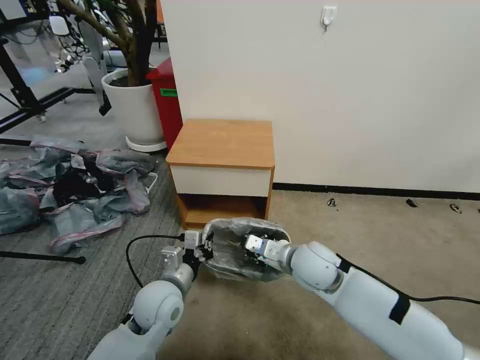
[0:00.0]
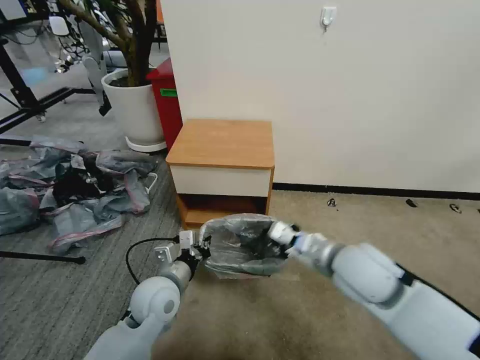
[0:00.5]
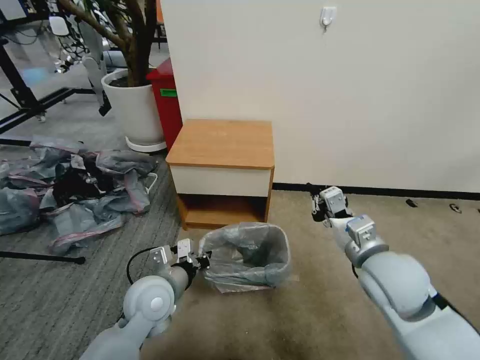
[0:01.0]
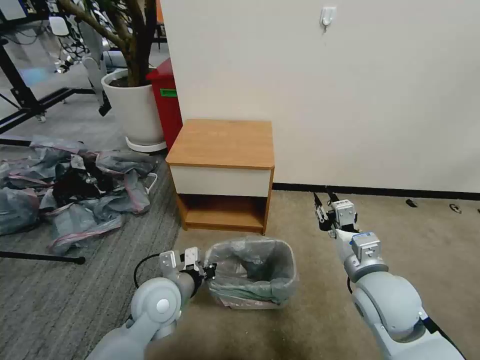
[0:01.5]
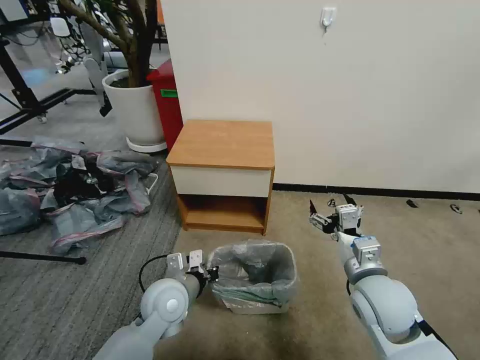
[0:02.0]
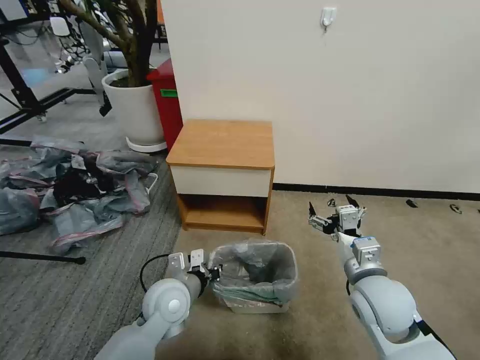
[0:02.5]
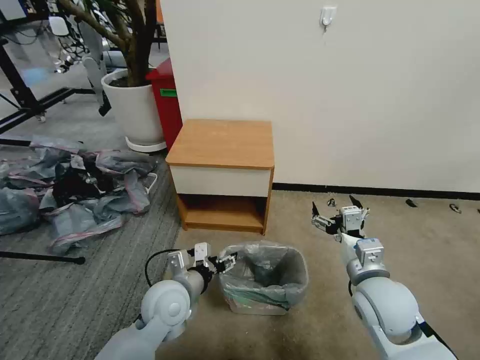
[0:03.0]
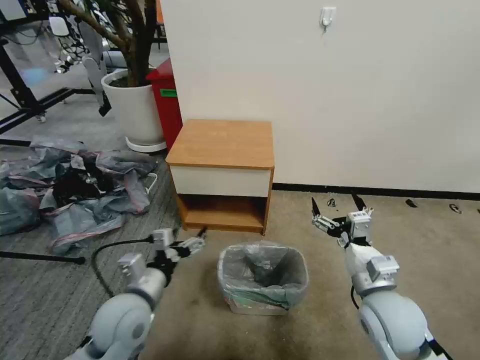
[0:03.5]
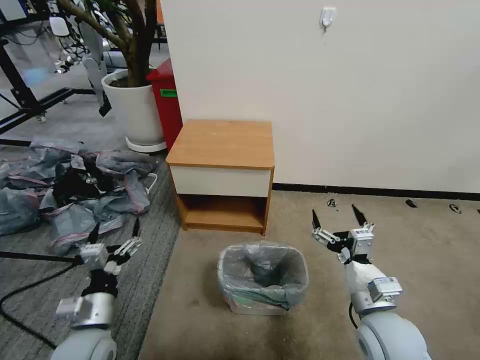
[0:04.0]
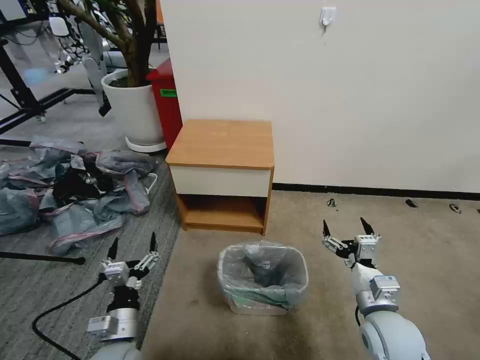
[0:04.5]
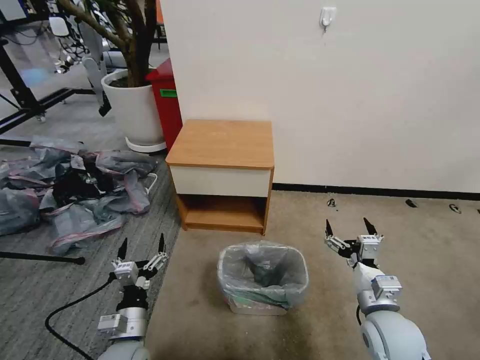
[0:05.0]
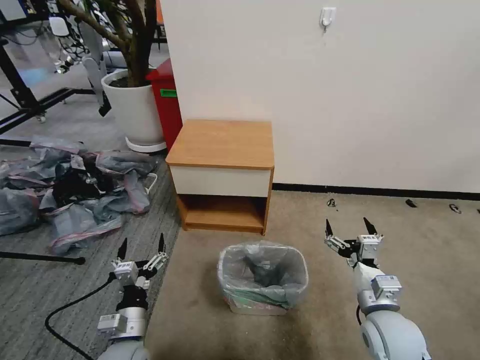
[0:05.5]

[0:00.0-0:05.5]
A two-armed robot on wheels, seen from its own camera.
Task of the whole recording: Pick up the garbage bag from the table and place it over the trash can.
0:00.0 to 0:02.0: The right gripper moves to the right and backward, about 15 cm, and opens its fingers.
0:02.0 to 0:03.5: The left gripper moves to the left and backward, some 10 cm, and opens up.
0:03.5 to 0:05.5: The right gripper travels downward by approximately 5 cm; the left gripper heads downward, covering some 10 cm.

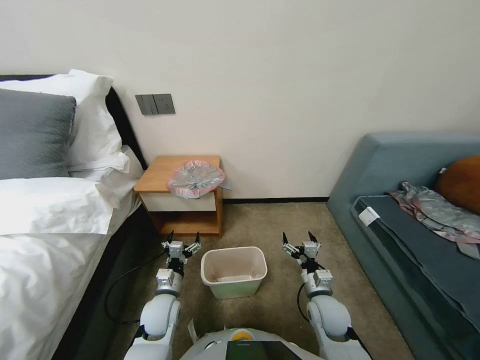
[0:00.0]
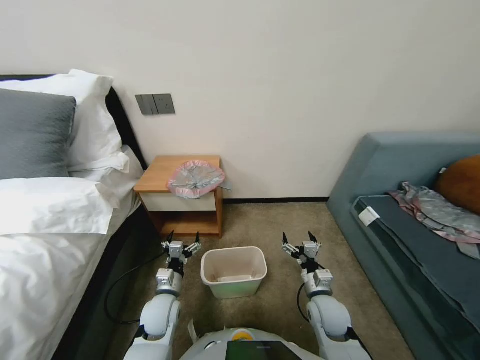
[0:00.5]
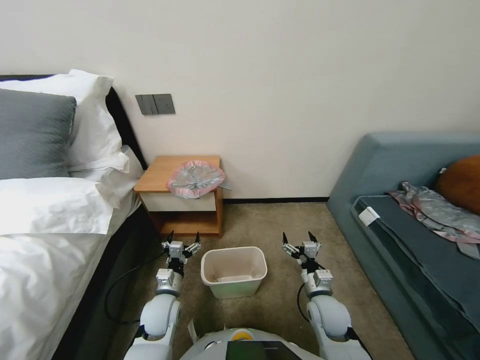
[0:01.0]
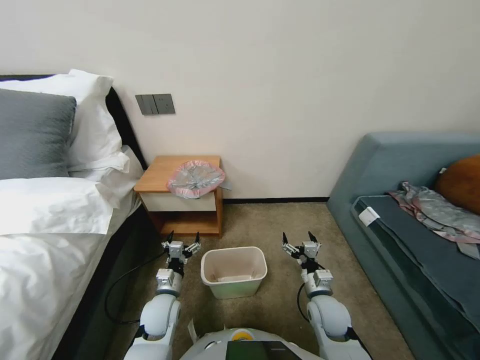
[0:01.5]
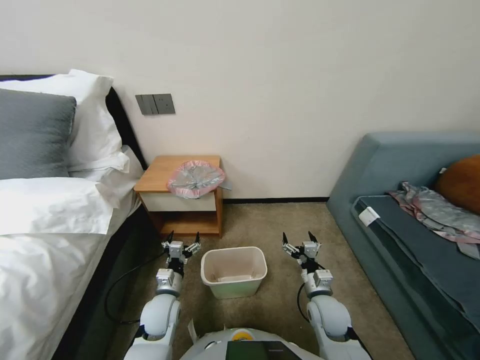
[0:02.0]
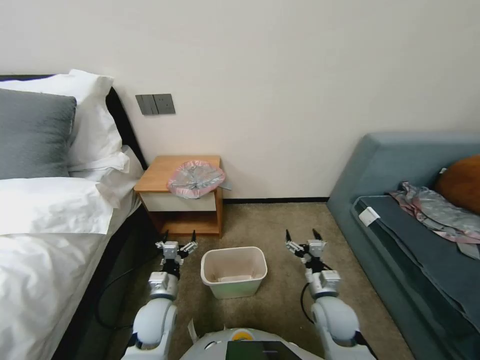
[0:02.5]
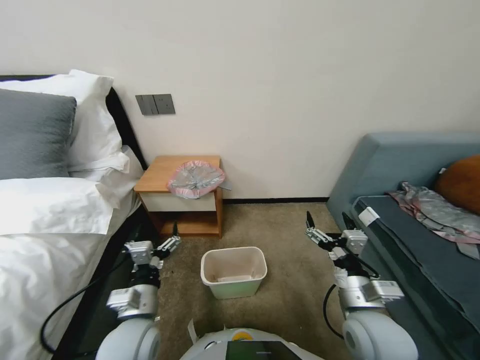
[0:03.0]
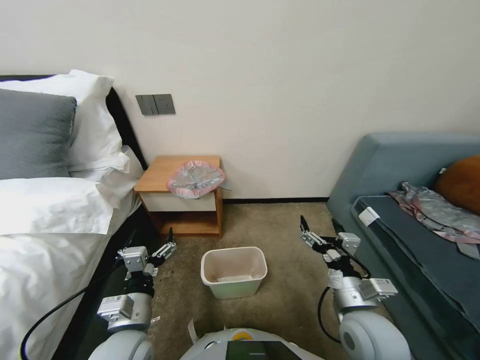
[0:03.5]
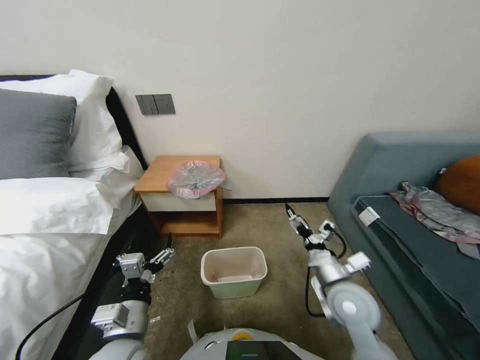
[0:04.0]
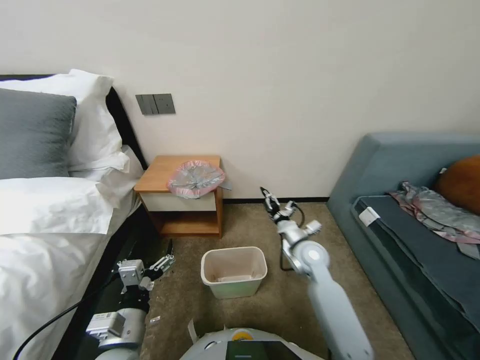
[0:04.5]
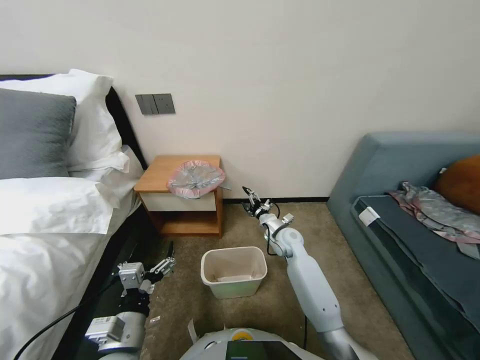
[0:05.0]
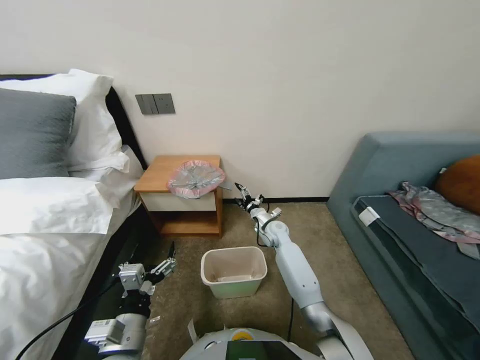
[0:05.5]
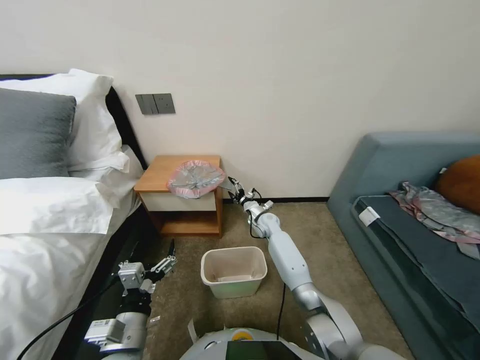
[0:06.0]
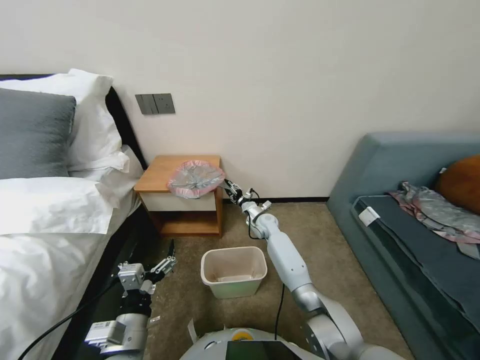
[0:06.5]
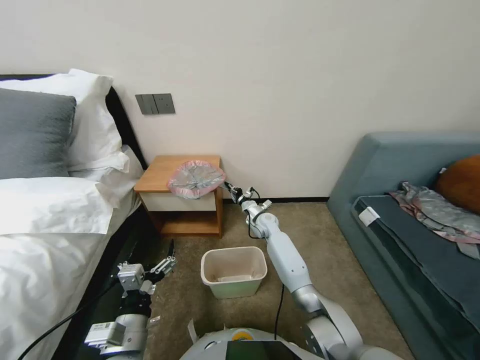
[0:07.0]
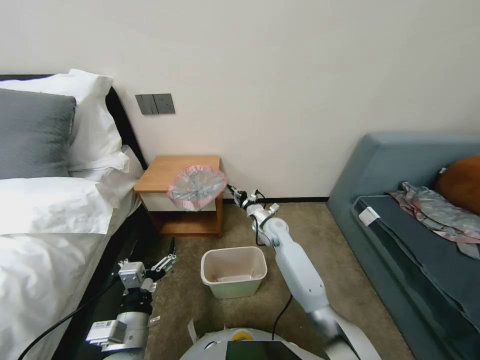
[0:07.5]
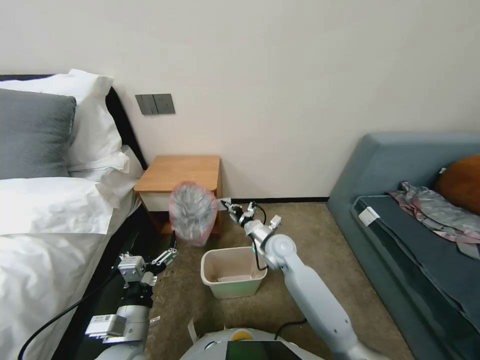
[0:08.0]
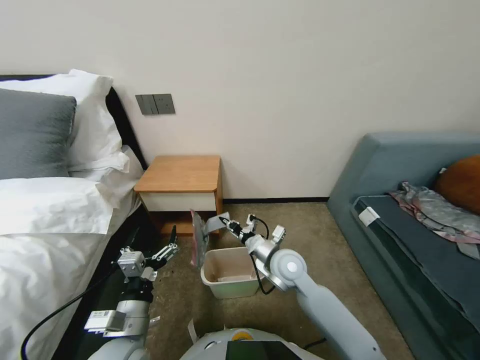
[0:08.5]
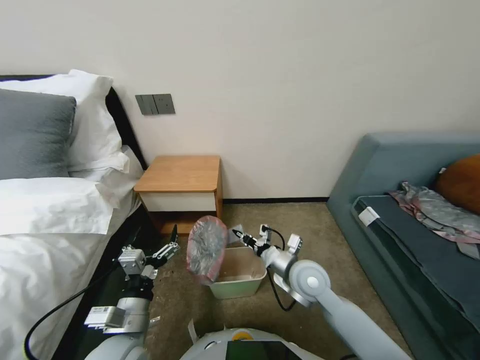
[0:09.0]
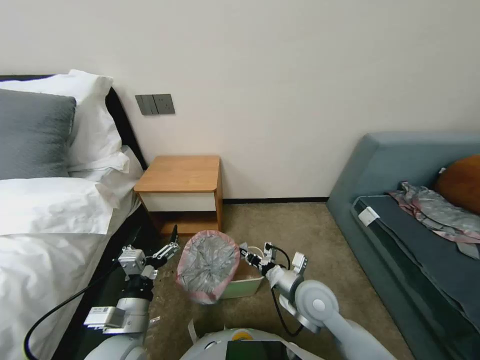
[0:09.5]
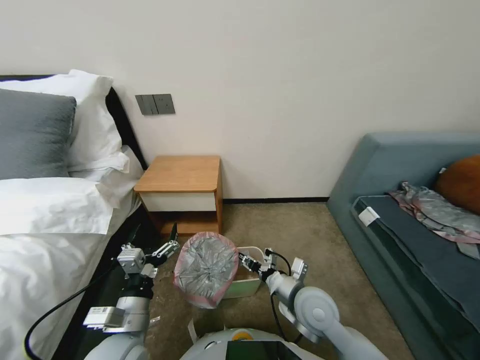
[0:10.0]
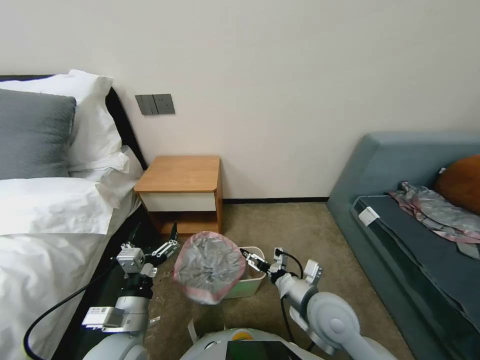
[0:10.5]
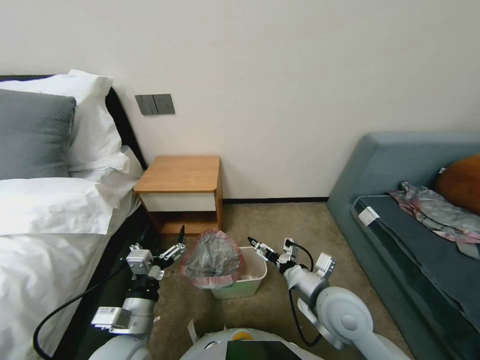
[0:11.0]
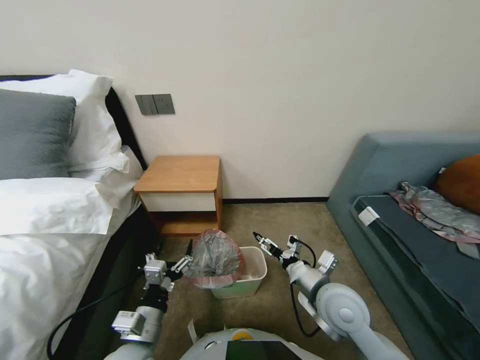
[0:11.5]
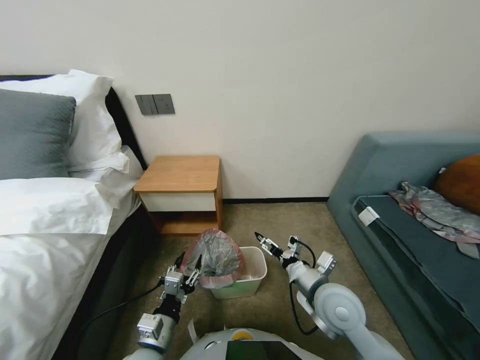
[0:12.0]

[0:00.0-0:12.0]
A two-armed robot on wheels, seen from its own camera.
Task of the whole recording: Pick up the garbage bag from the table and place it over the trash can.
0:02.0 to 0:04.0: The left gripper shifts roughly 15 cm upward and backward; the right gripper moves upward, about 10 cm.
0:04.0 to 0:06.0: The right gripper is displaced forward by about 30 cm.
0:06.0 to 0:08.0: The right gripper is displaced backward and upward by roughly 15 cm, and closes its fingers.
0:08.0 to 0:10.0: The right gripper moves backward, some 15 cm.
0:10.0 to 0:12.0: The left gripper goes roughly 5 cm downward, and closes its fingers; the right gripper shifts by approximately 5 cm, and opens.

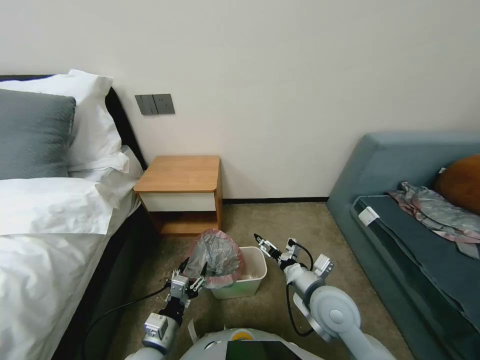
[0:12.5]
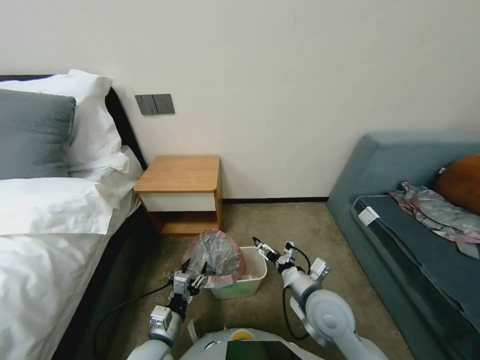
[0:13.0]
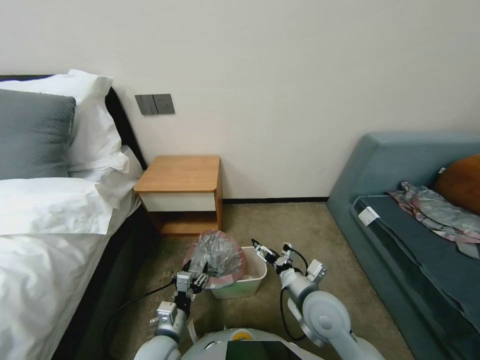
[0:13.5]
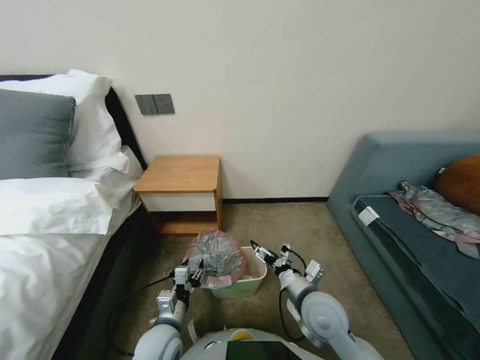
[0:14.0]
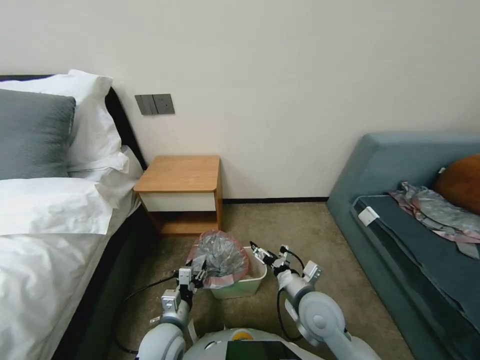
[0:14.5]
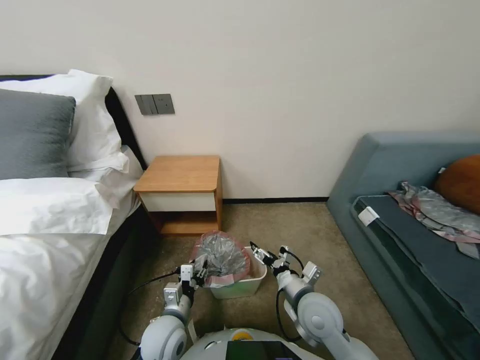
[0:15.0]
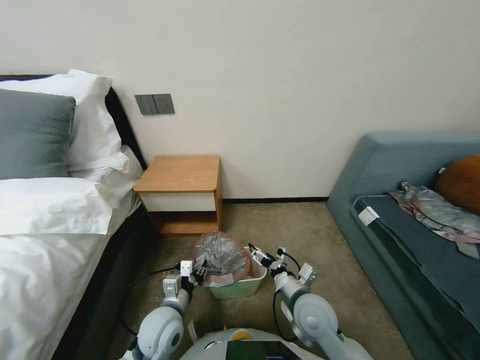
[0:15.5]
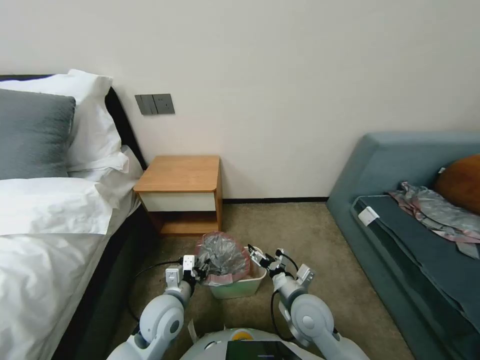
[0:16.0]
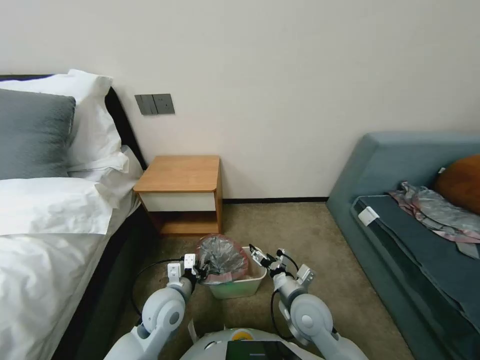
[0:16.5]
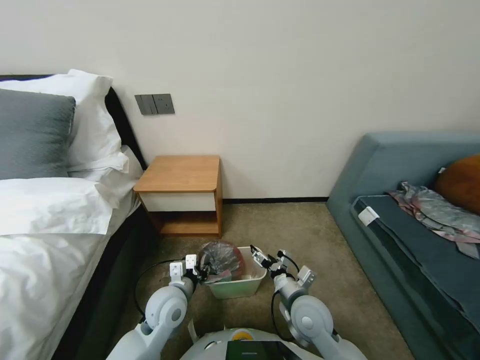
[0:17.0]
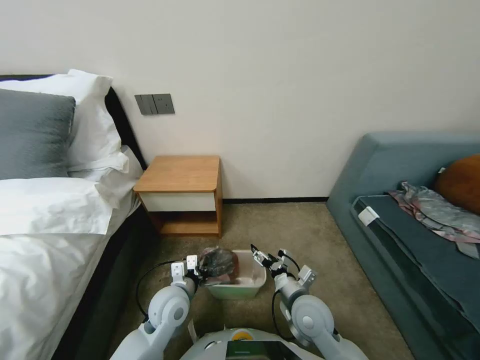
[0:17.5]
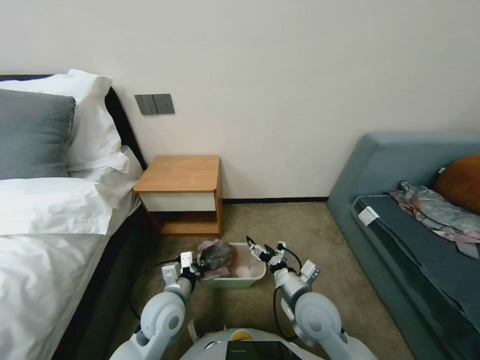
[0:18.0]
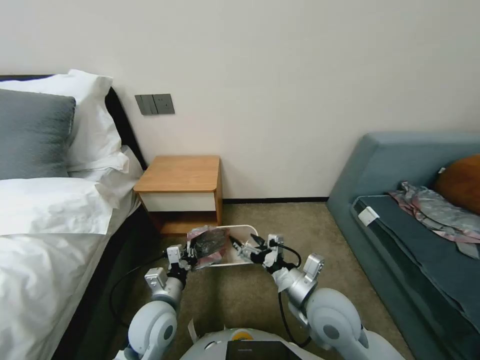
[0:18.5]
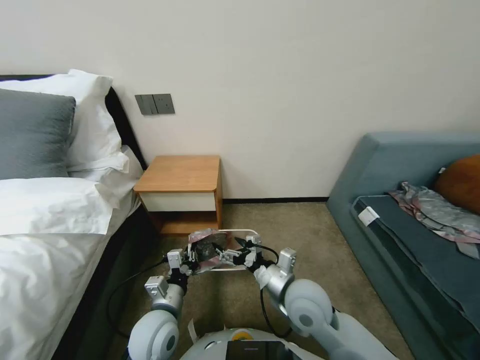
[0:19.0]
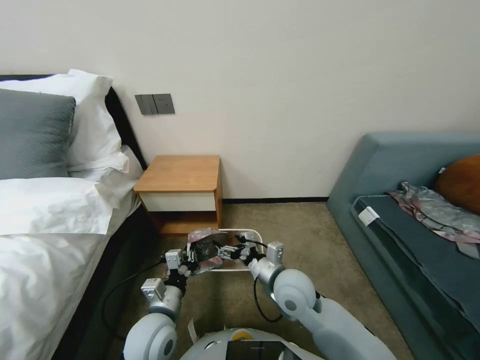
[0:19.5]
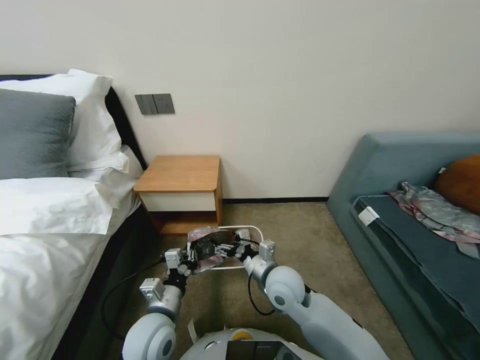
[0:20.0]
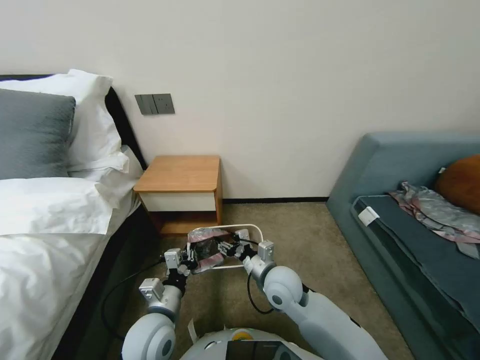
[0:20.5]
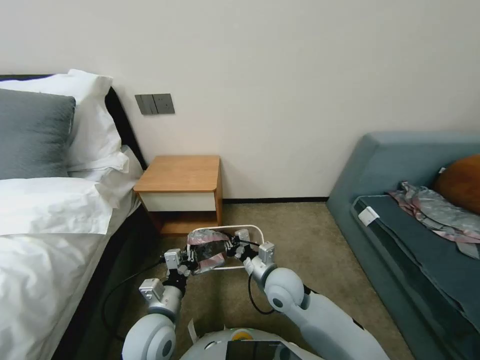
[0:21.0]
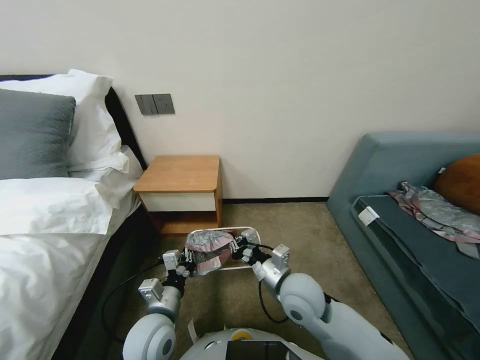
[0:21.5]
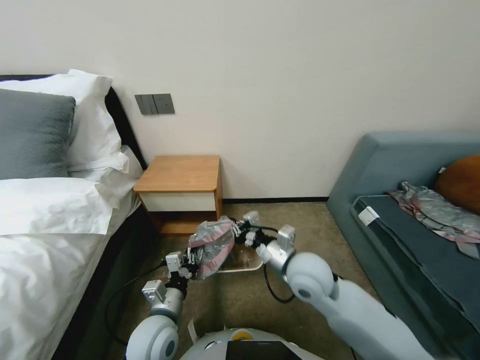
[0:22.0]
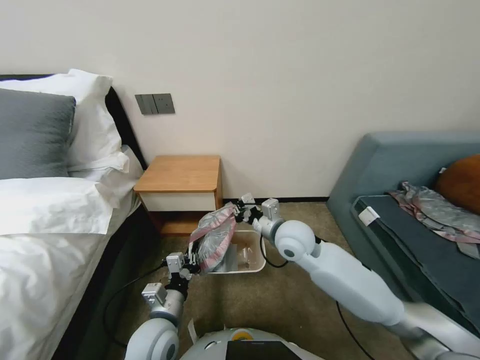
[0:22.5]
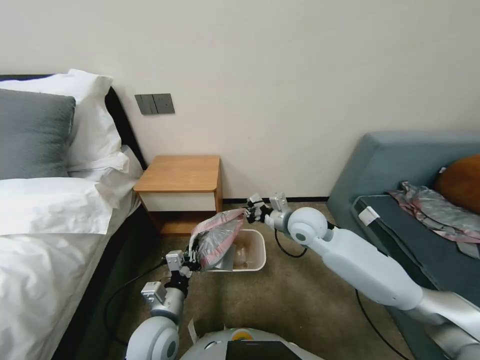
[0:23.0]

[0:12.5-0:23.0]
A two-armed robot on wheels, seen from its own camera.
Task of the whole recording: Pick up the garbage bag from the table and place it over the trash can.
0:12.5 to 0:14.5: The left gripper ends up approximately 5 cm from where it was.
0:14.5 to 0:16.5: The left gripper is displaced forward by approximately 5 cm.
0:16.5 to 0:19.0: The right gripper goes approximately 10 cm upward, while the left gripper closes its fingers.
0:19.0 to 0:21.0: The right gripper heads forward and downward, covering approximately 5 cm, and closes.
0:21.0 to 0:23.0: The right gripper goes about 15 cm forward, upward and to the right.
